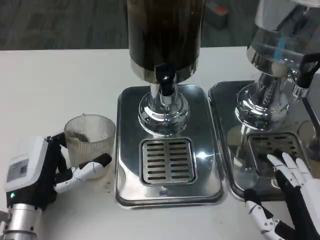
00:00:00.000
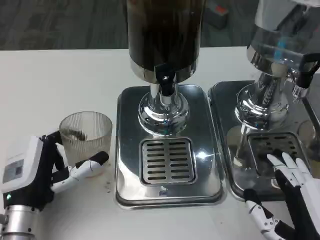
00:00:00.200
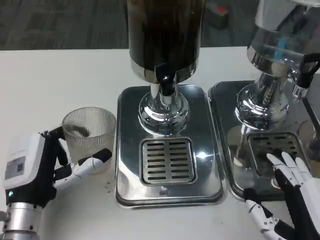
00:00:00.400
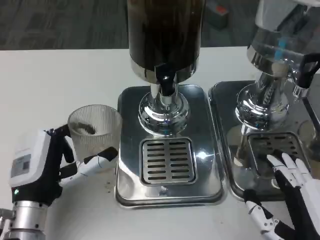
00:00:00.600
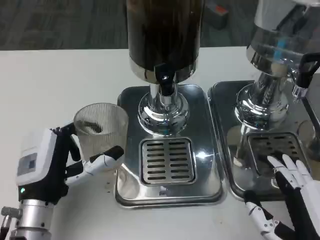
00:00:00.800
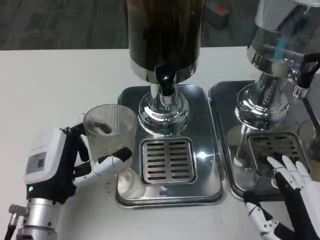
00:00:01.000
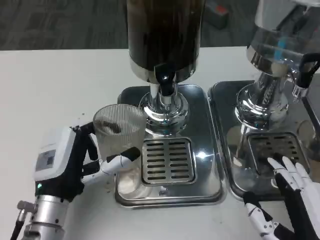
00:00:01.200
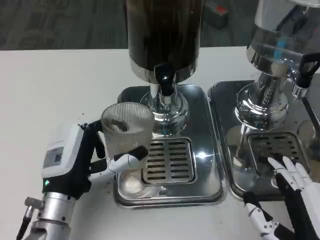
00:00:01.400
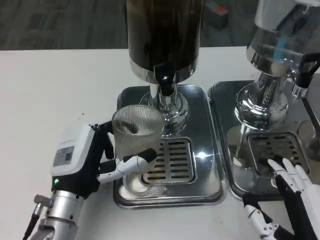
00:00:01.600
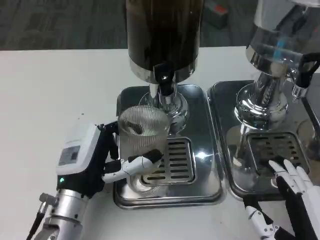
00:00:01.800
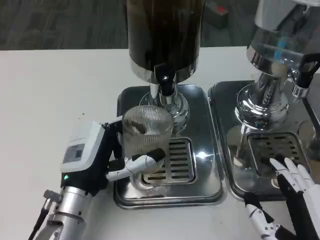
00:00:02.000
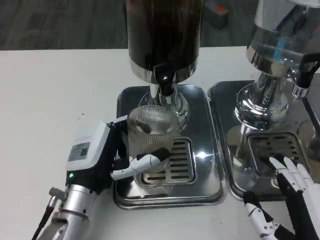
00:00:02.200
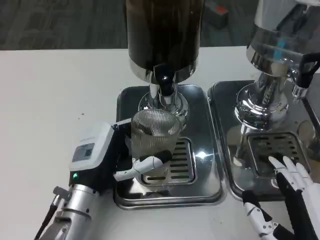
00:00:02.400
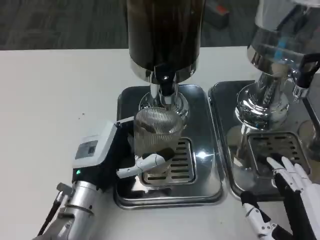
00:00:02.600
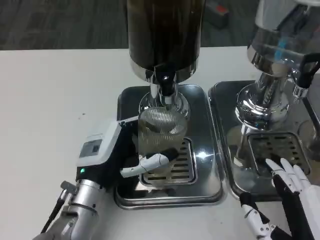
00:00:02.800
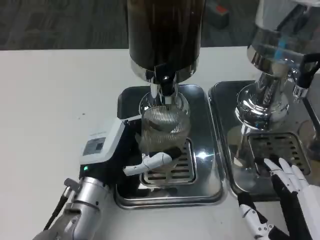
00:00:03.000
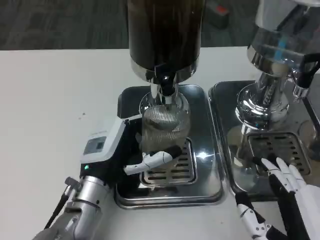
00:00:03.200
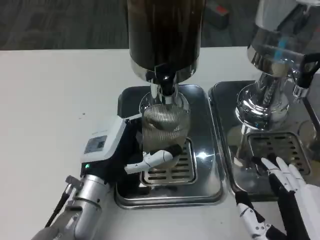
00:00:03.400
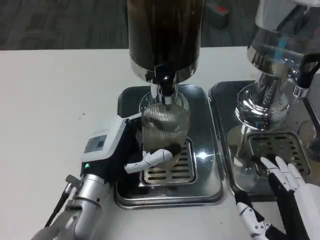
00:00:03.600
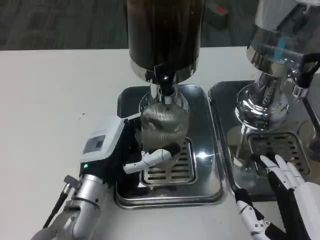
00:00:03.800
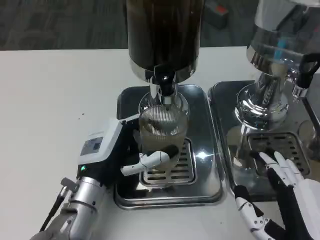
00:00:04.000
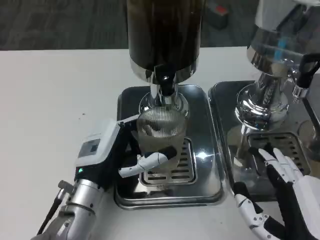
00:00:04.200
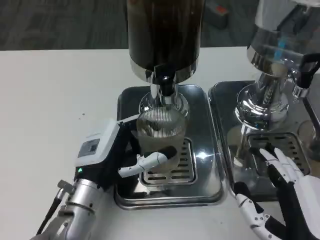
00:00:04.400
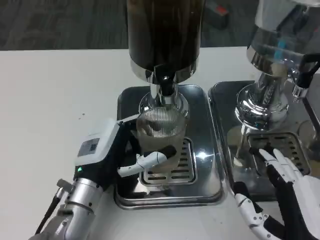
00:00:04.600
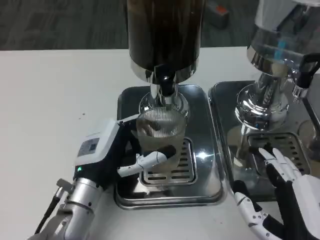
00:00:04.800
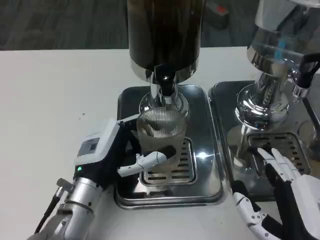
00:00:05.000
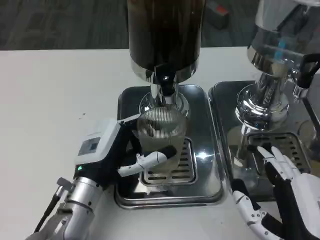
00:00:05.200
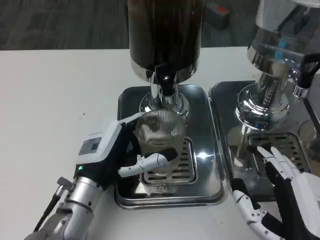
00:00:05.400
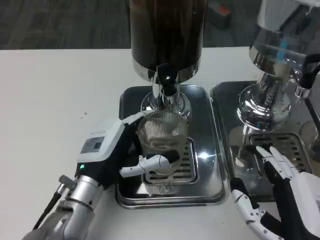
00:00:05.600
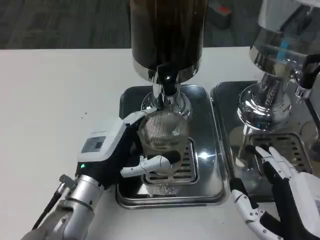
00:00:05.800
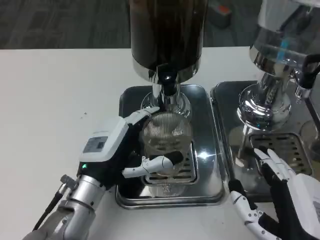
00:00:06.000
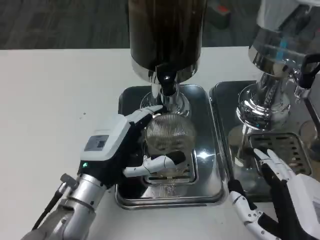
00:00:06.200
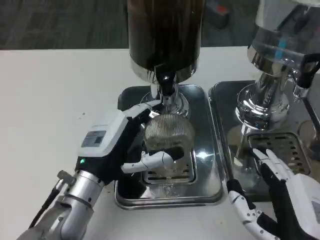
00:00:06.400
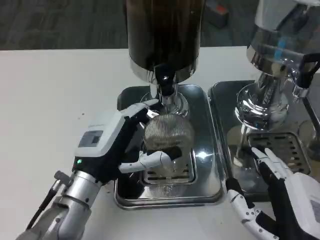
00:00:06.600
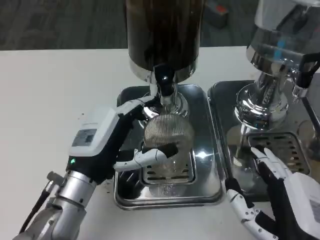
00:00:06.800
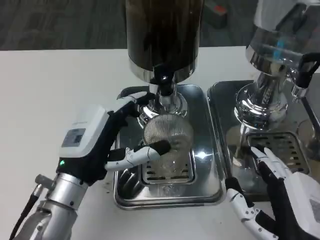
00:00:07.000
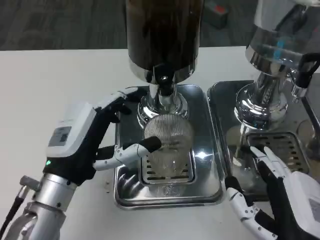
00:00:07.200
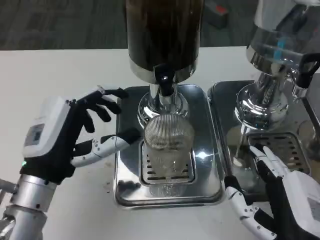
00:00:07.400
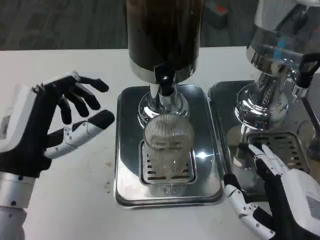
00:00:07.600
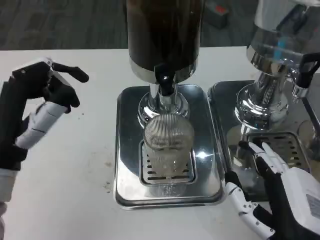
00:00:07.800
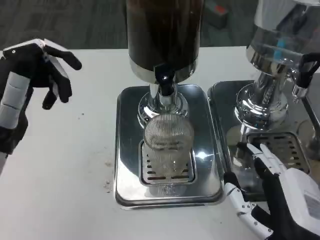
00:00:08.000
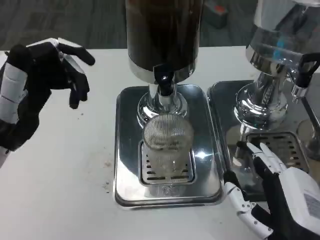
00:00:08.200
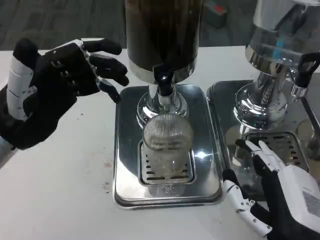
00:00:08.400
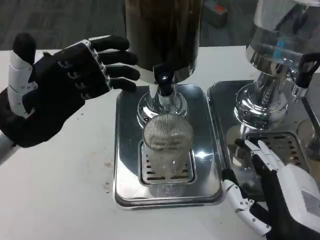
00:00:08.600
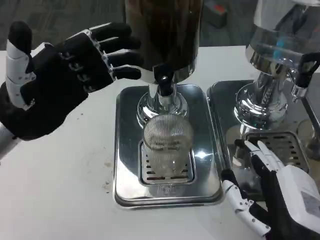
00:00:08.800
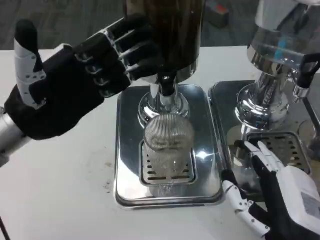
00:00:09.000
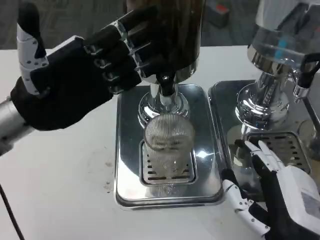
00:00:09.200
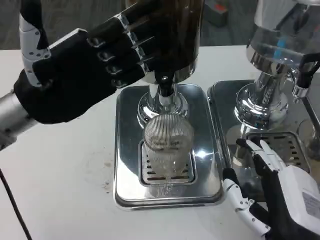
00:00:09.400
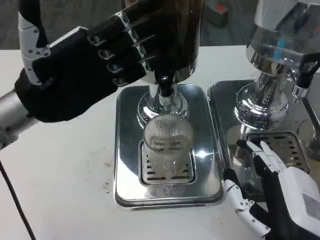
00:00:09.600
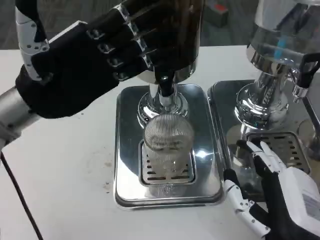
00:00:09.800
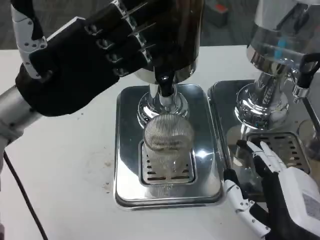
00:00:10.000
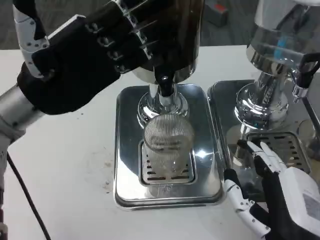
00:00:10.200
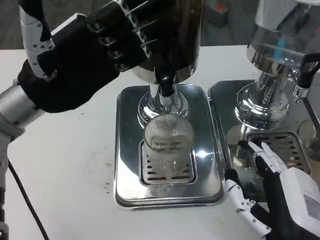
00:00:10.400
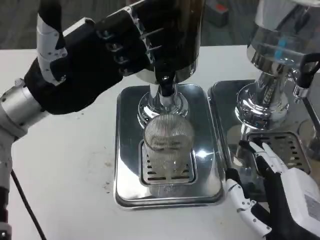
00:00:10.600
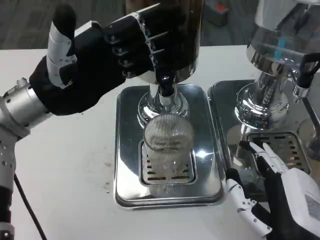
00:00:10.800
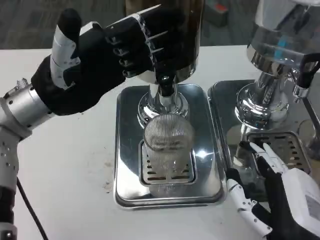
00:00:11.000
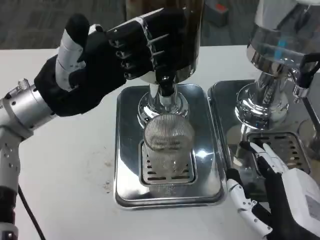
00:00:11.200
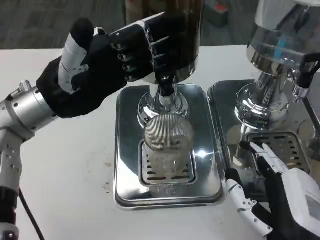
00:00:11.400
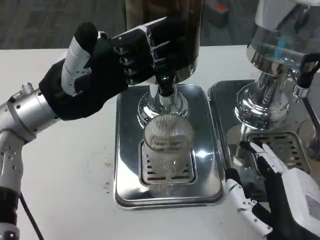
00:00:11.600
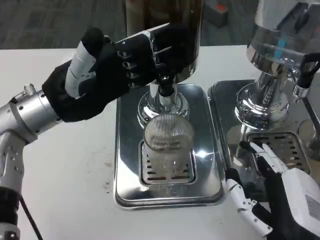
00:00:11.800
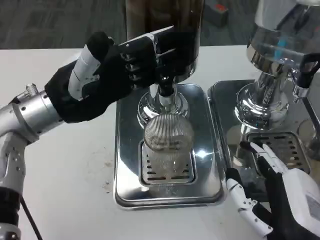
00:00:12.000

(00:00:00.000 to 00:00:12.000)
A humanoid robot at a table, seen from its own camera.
Task of the whole recording: Grasp the cup under the faucet to collect the drink, then remove the cup.
00:00:00.000 - 00:00:01.600: The left hand heads to the right, covering some 5 cm.
00:00:01.600 - 00:00:03.000: The hands make only small movements.
00:00:03.000 - 00:00:04.400: Both hands stay about where they are.
00:00:04.400 - 00:00:06.000: The hands move only a little.
00:00:06.000 - 00:00:07.600: The left hand travels upward and to the left by roughly 10 cm.
00:00:07.600 - 00:00:09.000: The left hand travels forward and upward by some 10 cm.
00:00:09.000 - 00:00:10.400: The hands move only a little.

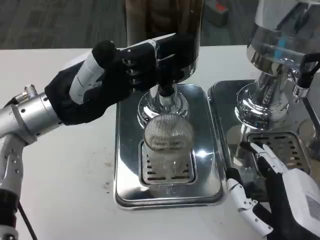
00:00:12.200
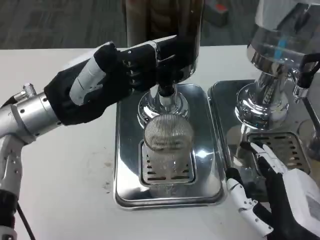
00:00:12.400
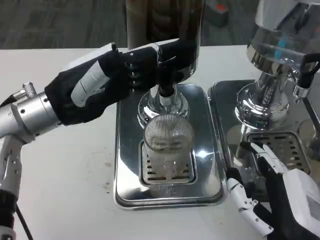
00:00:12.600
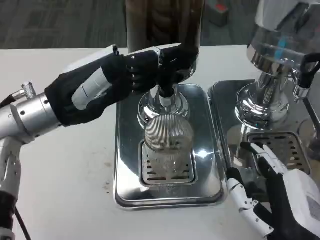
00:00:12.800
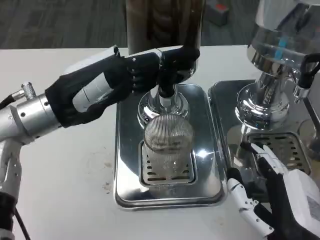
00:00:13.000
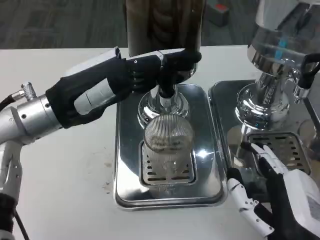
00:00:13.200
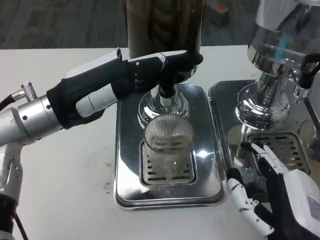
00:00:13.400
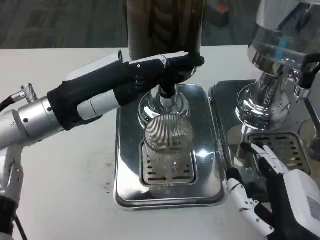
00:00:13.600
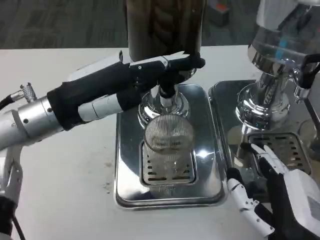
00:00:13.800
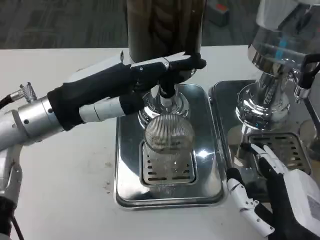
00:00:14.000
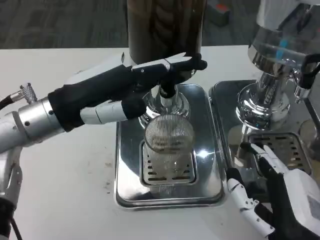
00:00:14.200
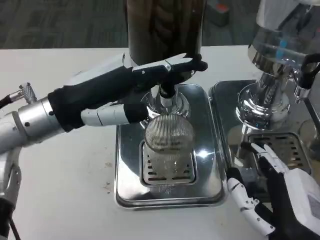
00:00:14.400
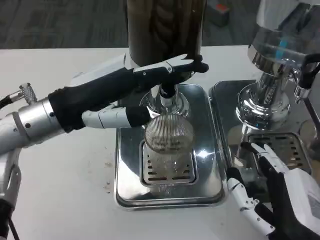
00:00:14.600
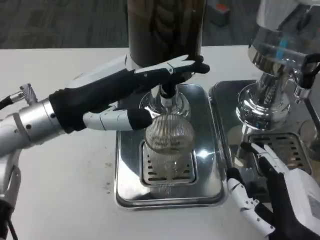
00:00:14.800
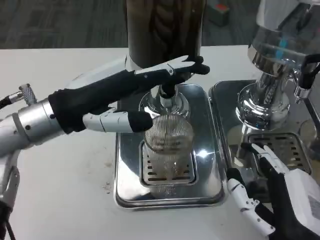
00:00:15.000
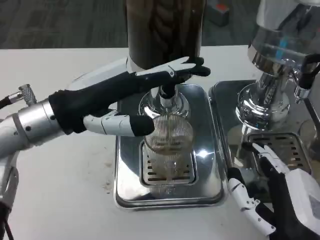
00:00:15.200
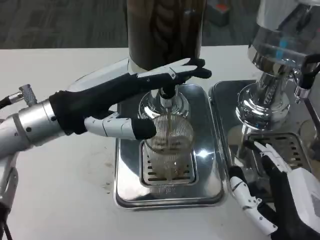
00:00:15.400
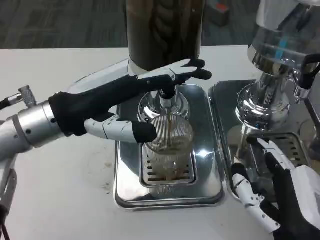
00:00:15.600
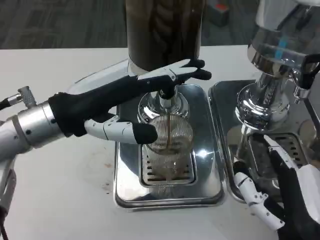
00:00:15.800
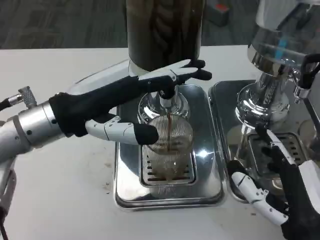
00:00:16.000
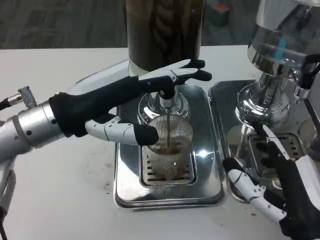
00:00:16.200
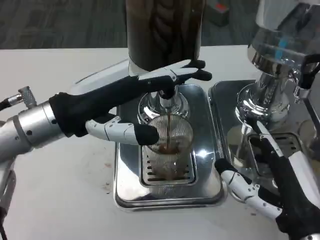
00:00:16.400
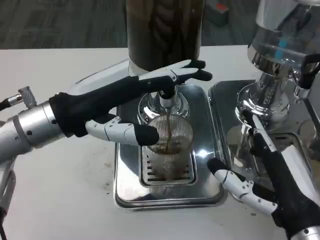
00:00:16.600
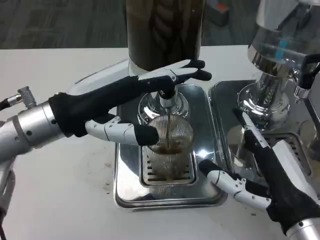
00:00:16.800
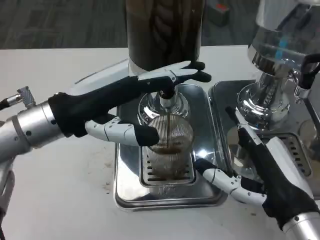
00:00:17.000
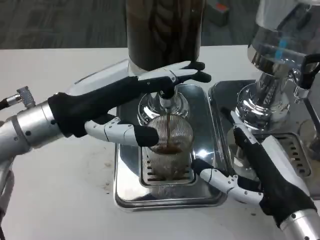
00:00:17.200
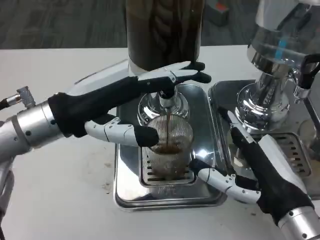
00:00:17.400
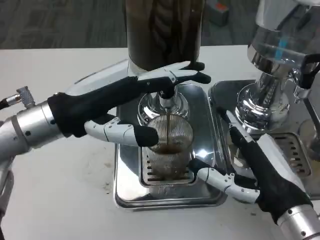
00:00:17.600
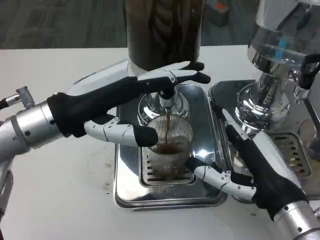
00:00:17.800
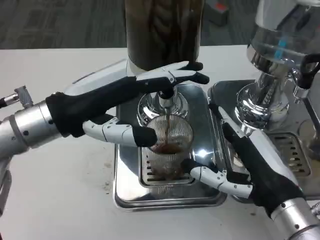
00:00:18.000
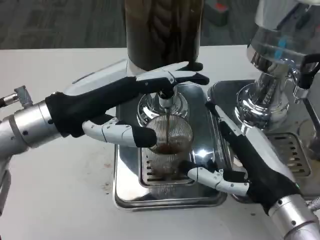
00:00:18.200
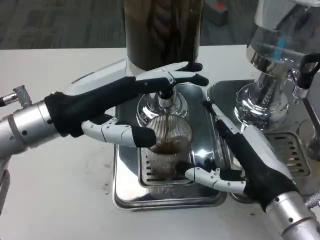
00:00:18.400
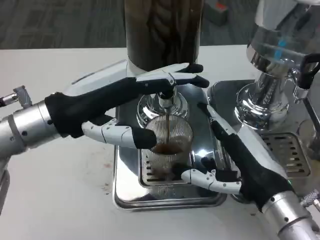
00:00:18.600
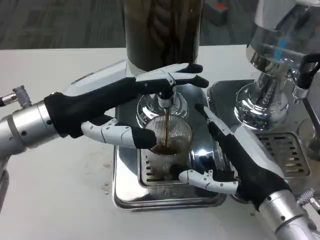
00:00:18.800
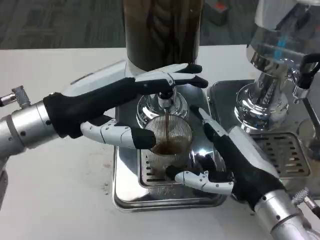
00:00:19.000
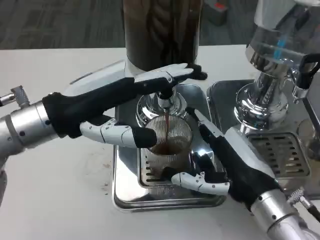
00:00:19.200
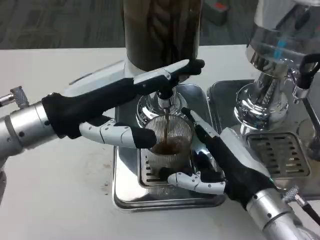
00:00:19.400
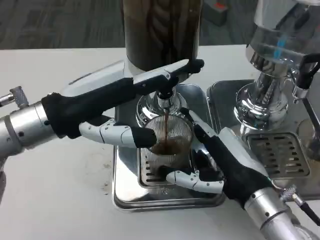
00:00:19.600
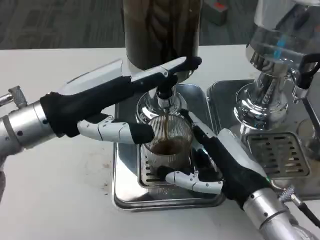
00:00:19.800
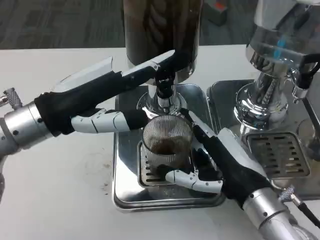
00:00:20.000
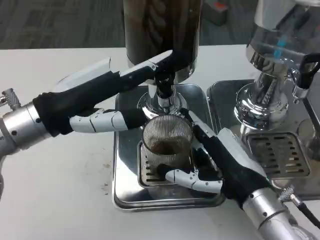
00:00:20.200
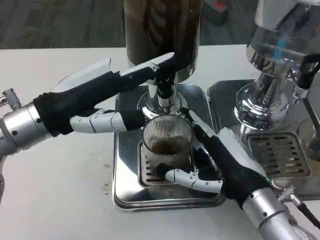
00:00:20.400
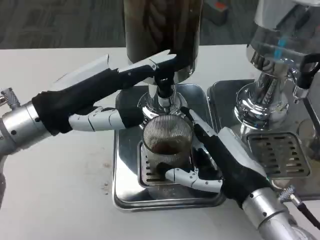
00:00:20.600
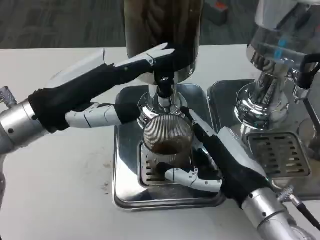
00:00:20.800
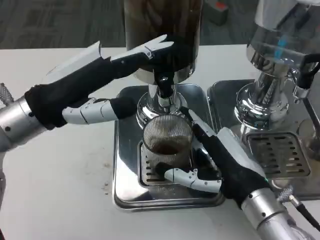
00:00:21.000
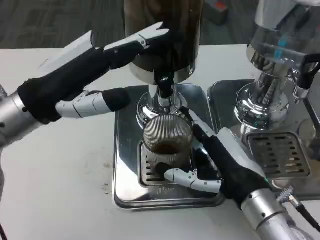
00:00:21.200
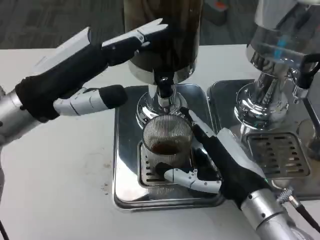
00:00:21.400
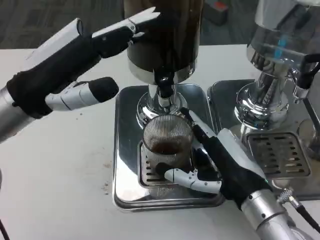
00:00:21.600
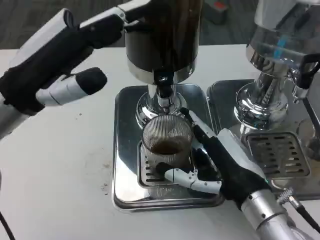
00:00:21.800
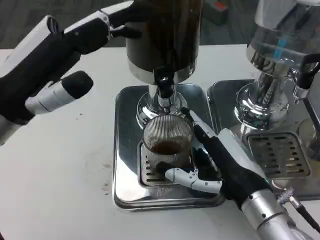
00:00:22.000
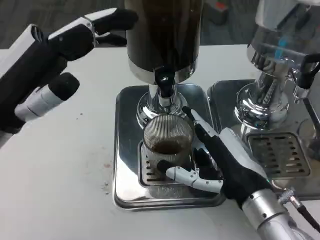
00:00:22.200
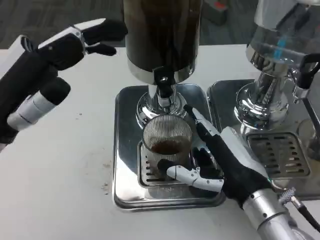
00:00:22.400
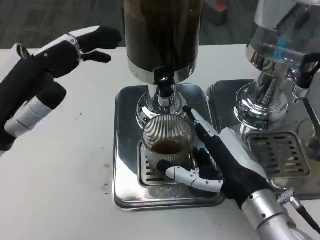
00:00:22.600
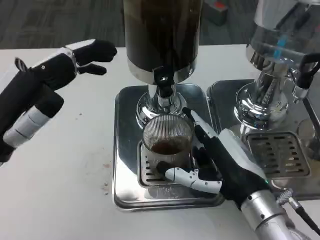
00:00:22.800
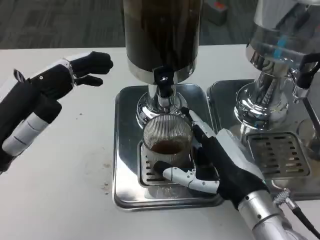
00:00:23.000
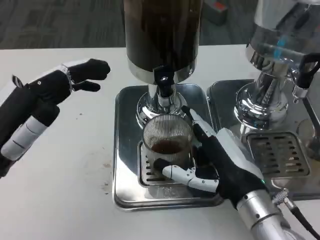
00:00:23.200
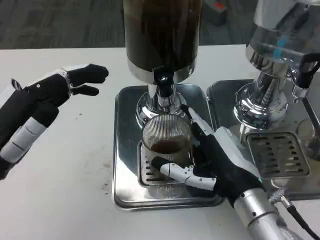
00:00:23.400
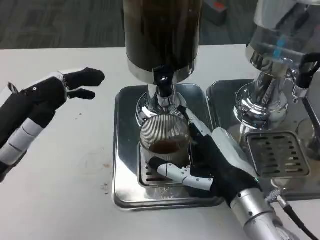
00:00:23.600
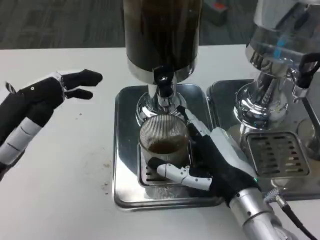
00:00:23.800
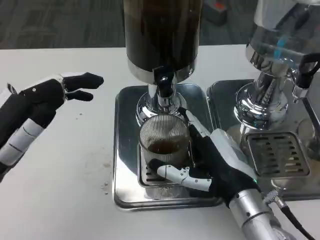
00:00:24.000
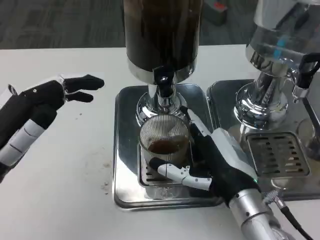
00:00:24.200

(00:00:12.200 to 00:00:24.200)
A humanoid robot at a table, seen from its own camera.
Task of the whole recording: Grasp the cup under the faucet to collect the drink, then remove the cup.
00:00:13.800 - 00:00:16.600: There are only small adjustments of the hands.
00:00:16.600 - 00:00:18.200: The hands stay close to where they were, moving slightly.
00:00:21.200 - 00:00:22.600: The left hand shifts by approximately 5 cm.
00:00:22.600 - 00:00:24.200: The hands move only a little.
